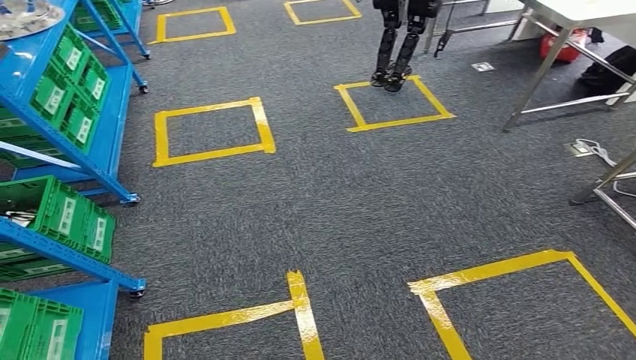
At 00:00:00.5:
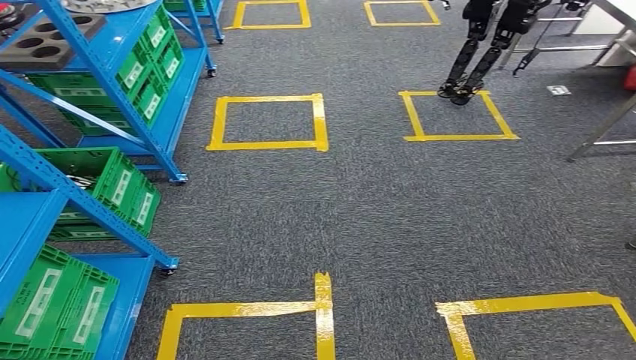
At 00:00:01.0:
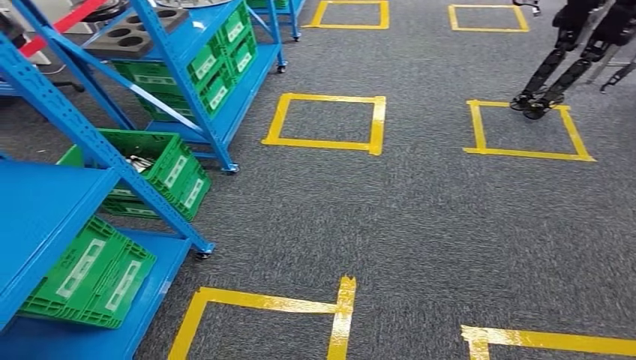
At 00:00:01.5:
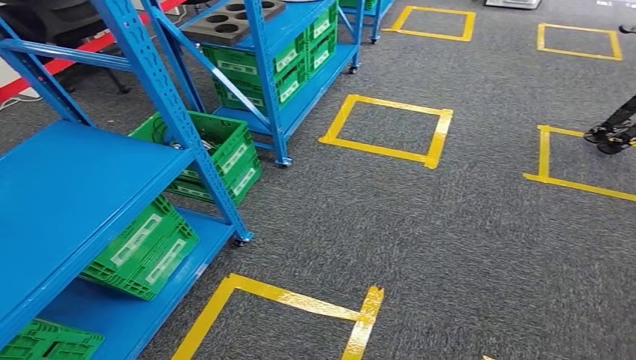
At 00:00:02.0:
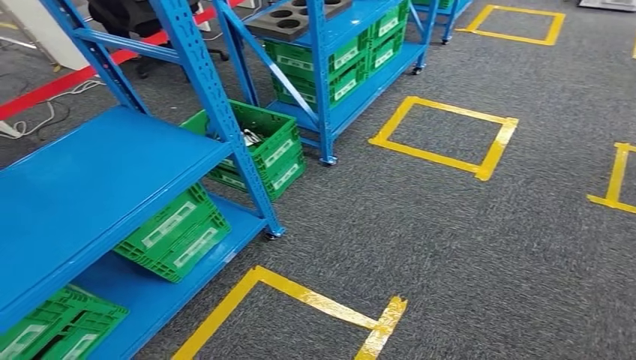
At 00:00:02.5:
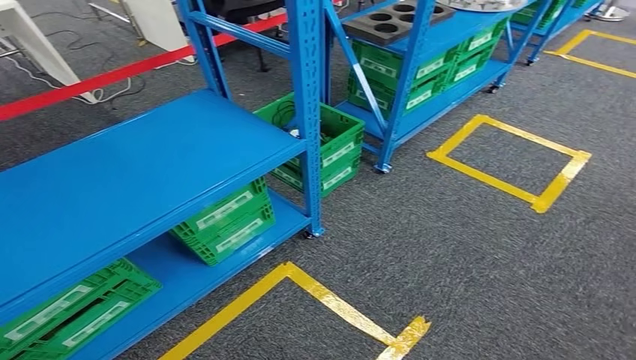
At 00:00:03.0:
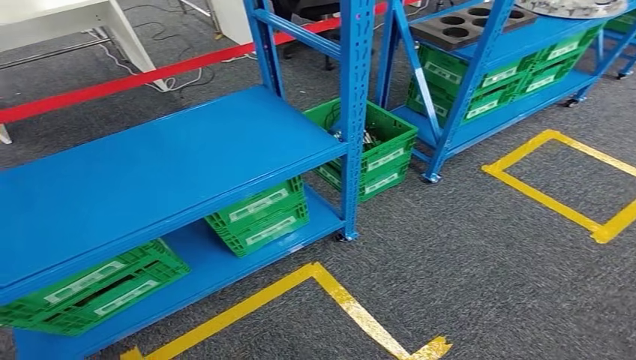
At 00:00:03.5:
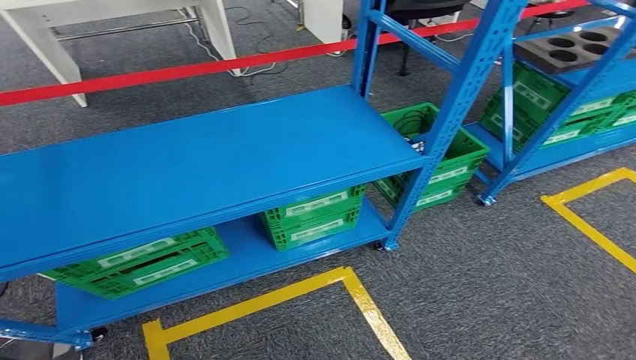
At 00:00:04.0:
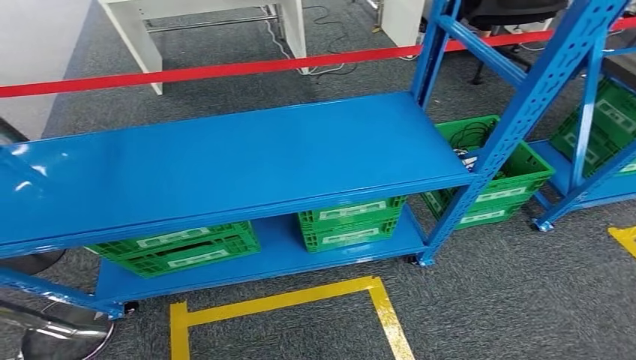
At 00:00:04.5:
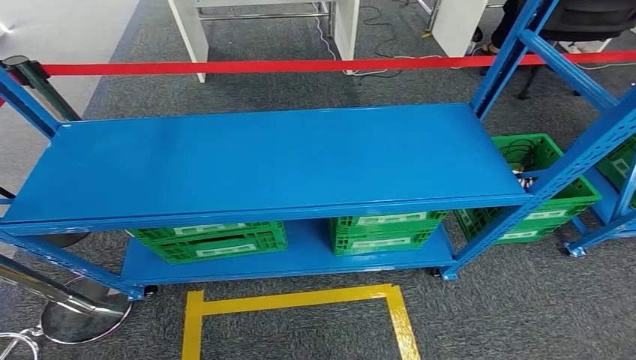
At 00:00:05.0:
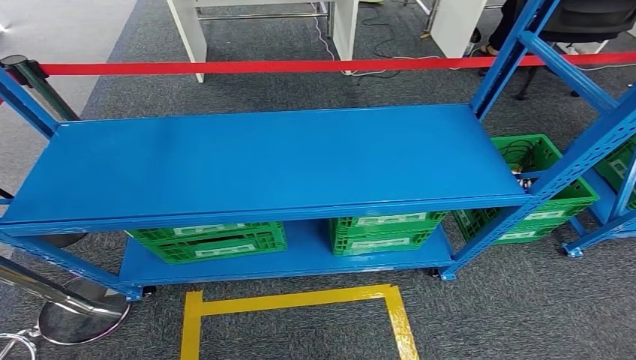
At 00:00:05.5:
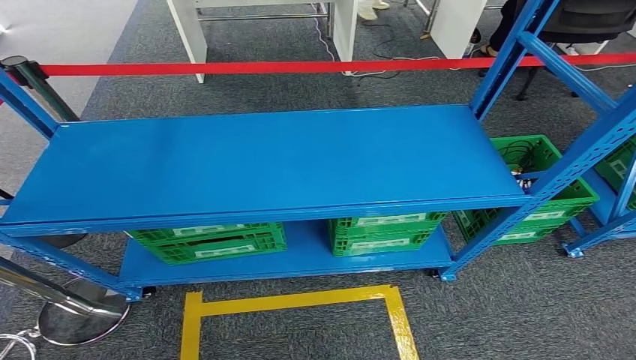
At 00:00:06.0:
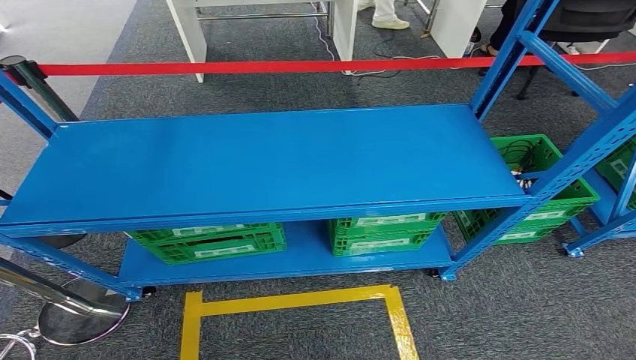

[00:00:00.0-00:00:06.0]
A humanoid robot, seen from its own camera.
Step, 00:00:00.0 to 00:00:06.0: Move to the initial position of the workbench.

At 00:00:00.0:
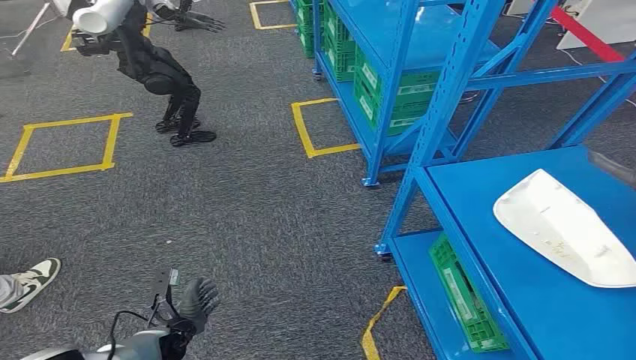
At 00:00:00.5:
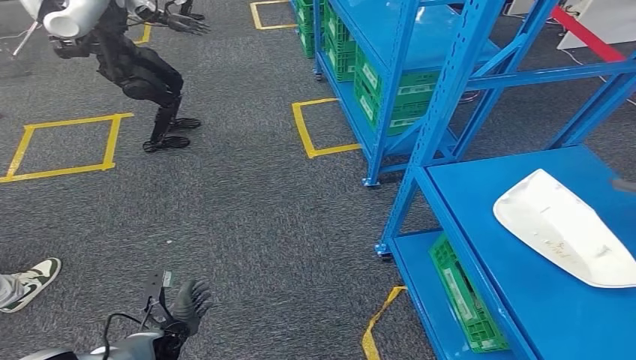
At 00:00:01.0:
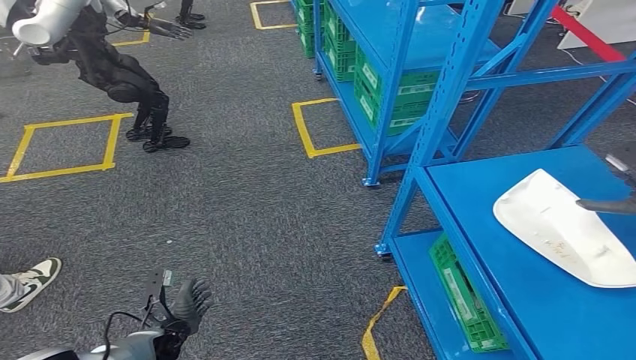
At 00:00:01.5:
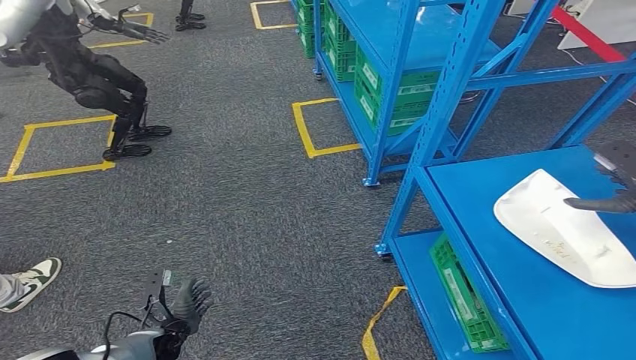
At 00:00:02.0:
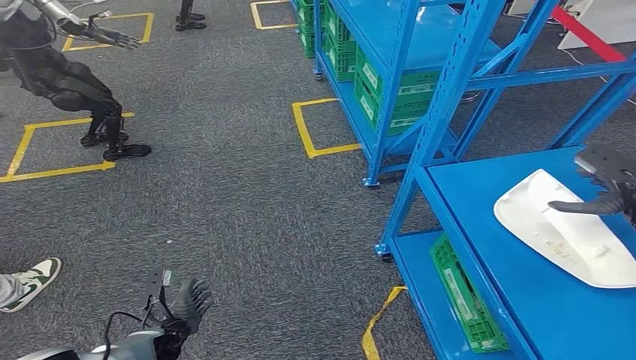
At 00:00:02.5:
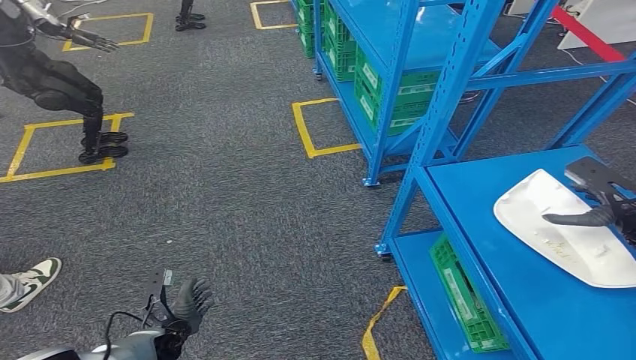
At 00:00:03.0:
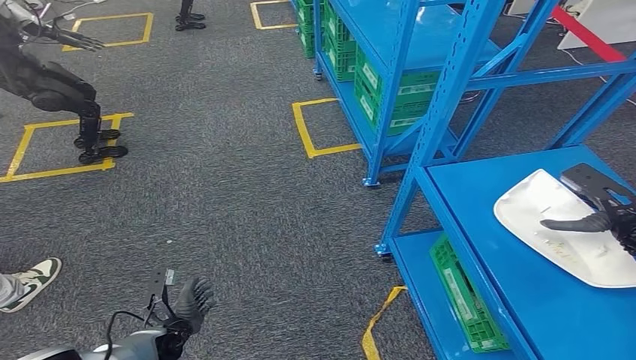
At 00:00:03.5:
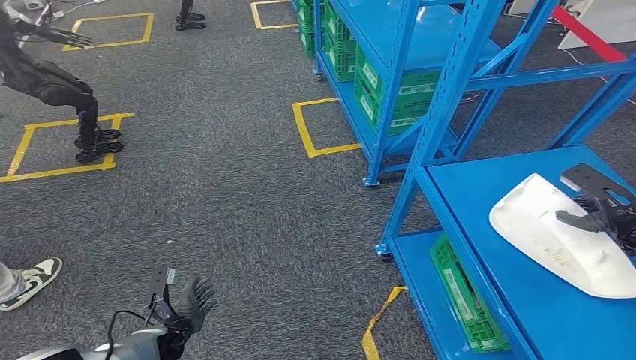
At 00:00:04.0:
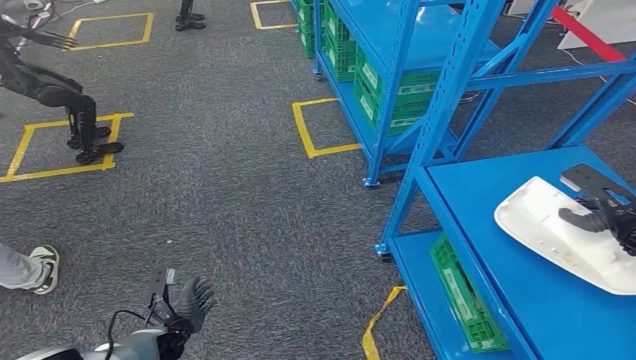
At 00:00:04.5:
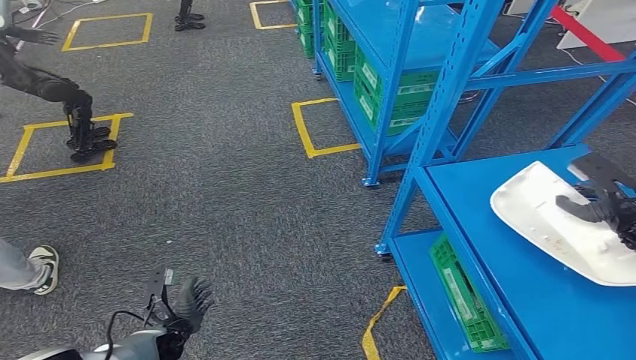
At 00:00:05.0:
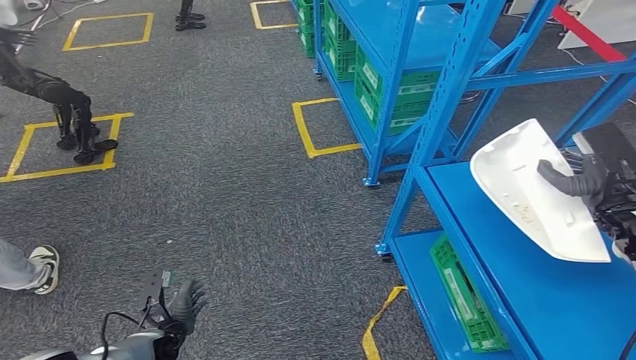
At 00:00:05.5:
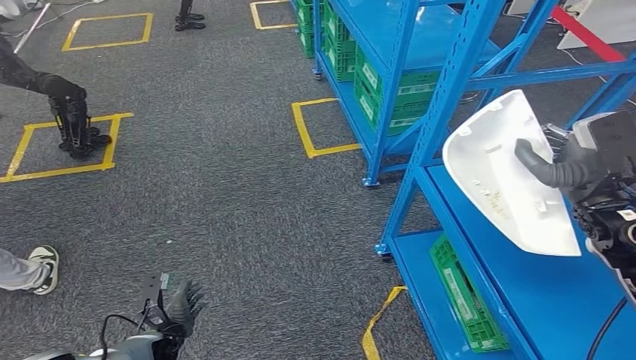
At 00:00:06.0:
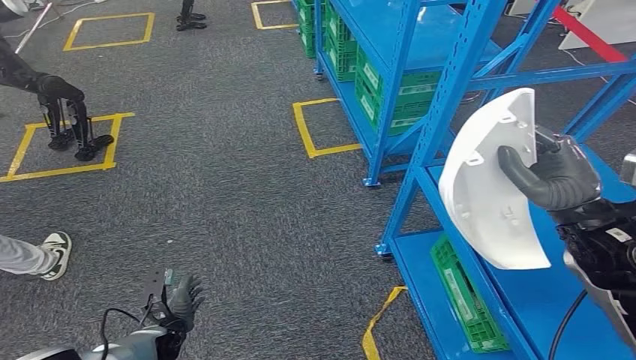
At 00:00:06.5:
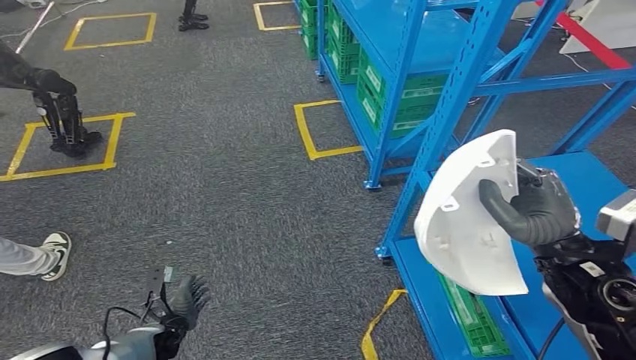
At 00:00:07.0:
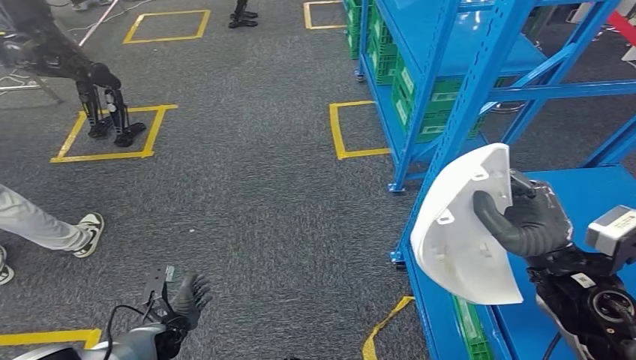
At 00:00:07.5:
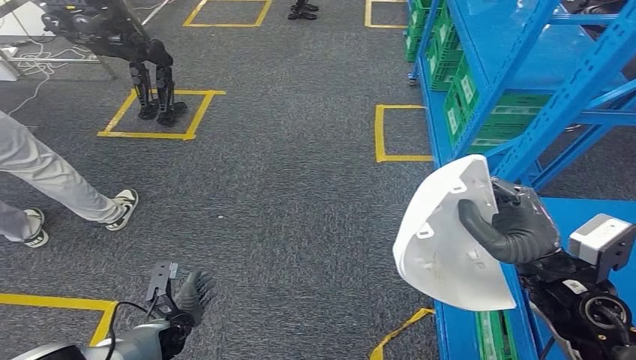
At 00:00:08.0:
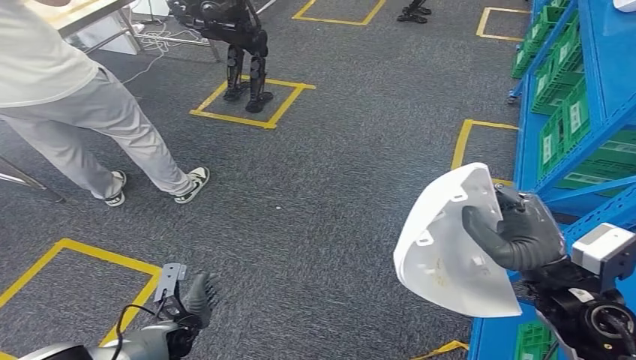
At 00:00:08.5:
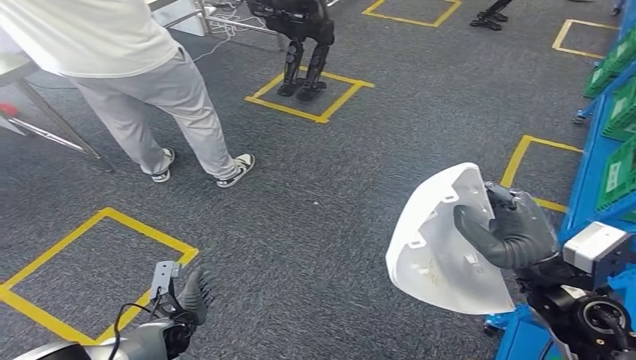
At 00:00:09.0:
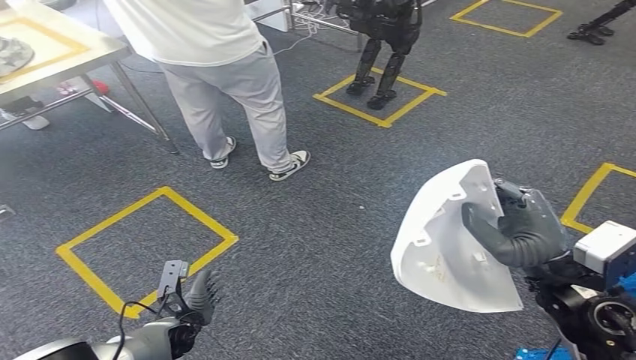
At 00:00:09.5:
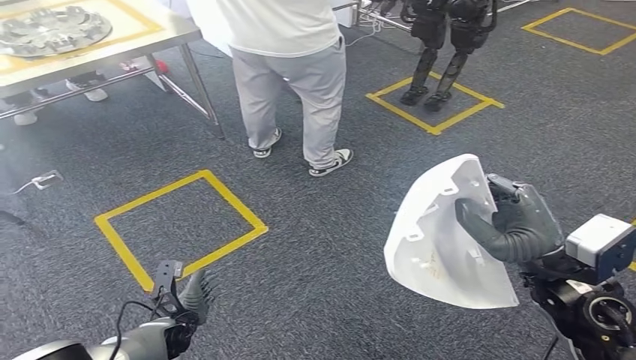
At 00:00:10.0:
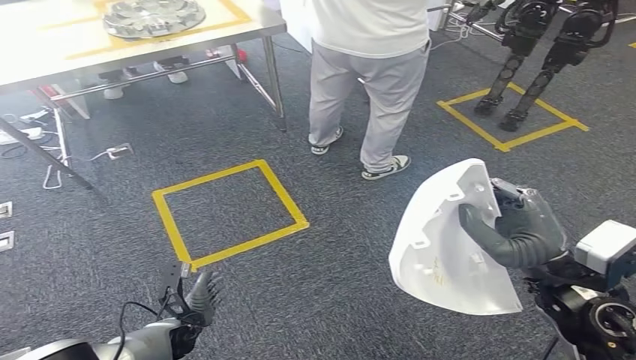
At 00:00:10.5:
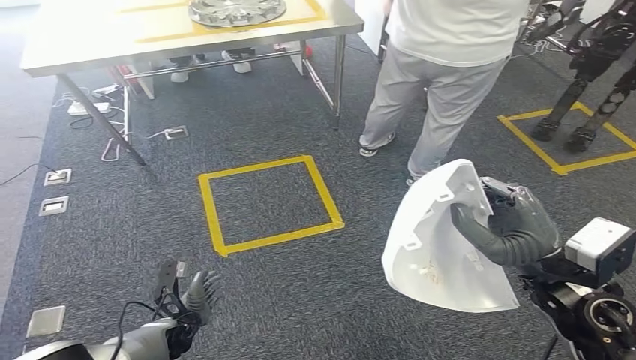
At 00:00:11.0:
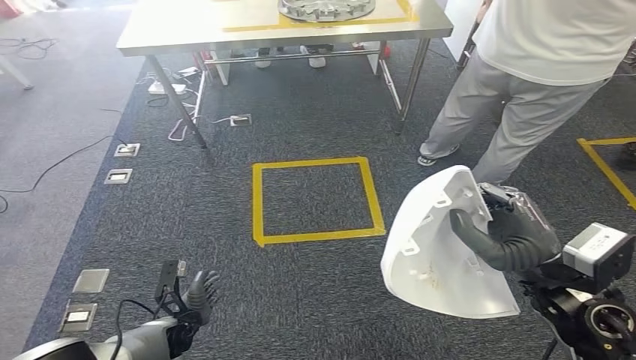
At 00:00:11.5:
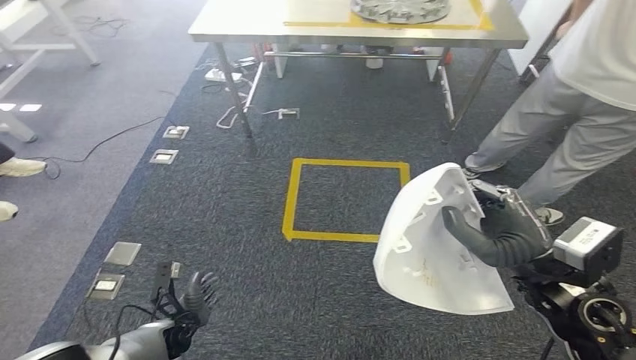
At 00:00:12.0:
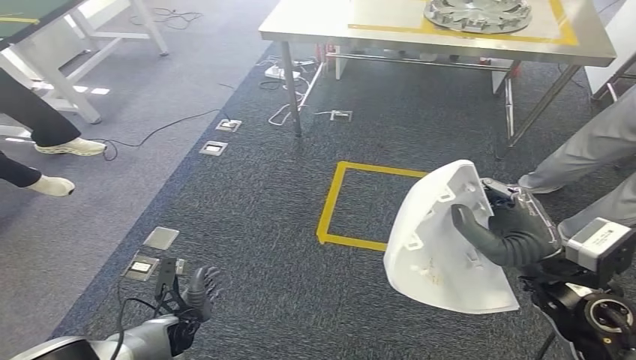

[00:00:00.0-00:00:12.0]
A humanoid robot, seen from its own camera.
Step, 00:00:00.0 to 00:00:06.5: Take small components from the rack.
00:00:02.0 to 00:00:04.0: The hands stay close to where they were, moving slightly.
00:00:04.0 to 00:00:06.0: The right hand moves to the left, backward and upward, approximately 20 cm.

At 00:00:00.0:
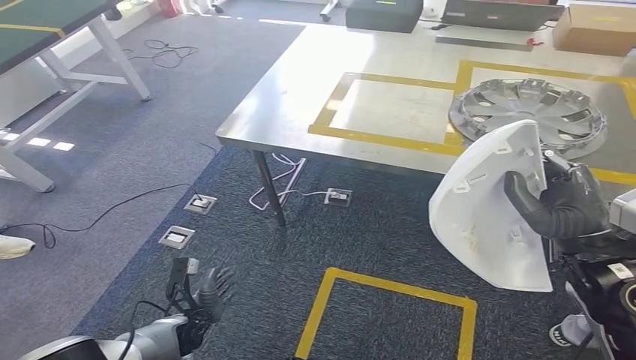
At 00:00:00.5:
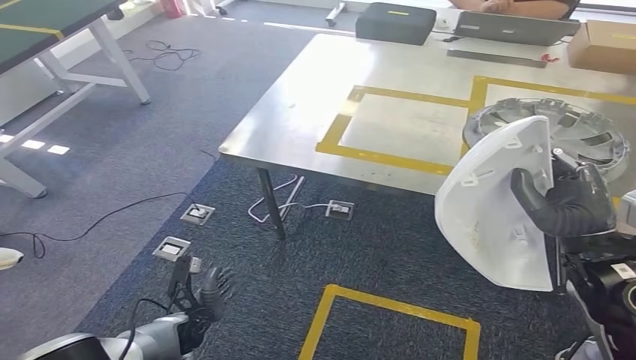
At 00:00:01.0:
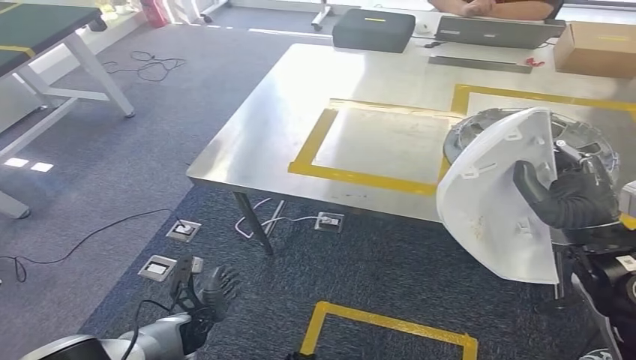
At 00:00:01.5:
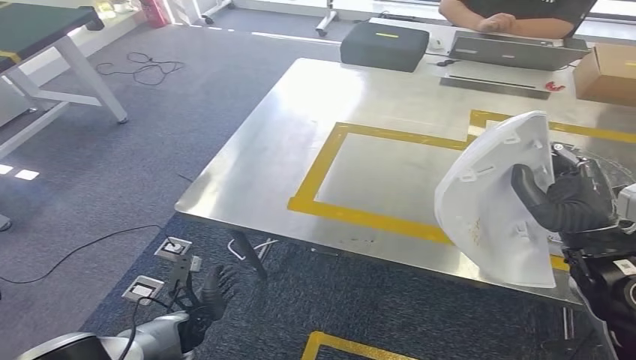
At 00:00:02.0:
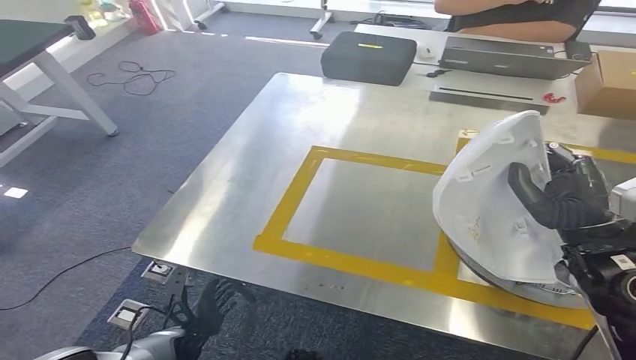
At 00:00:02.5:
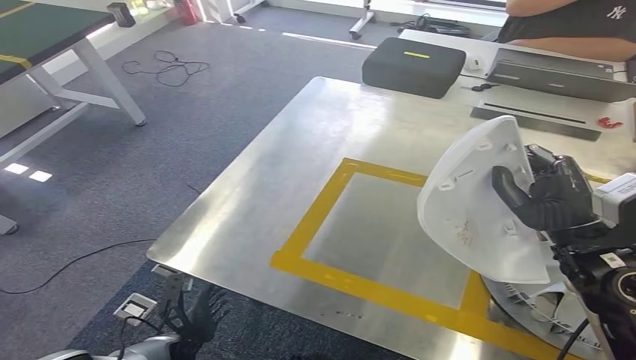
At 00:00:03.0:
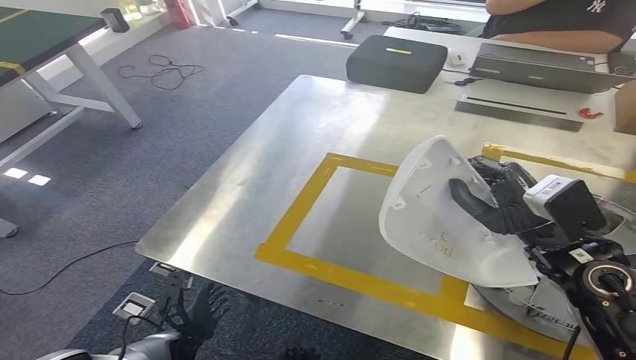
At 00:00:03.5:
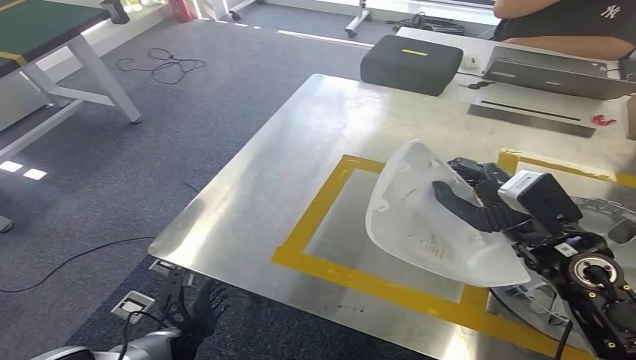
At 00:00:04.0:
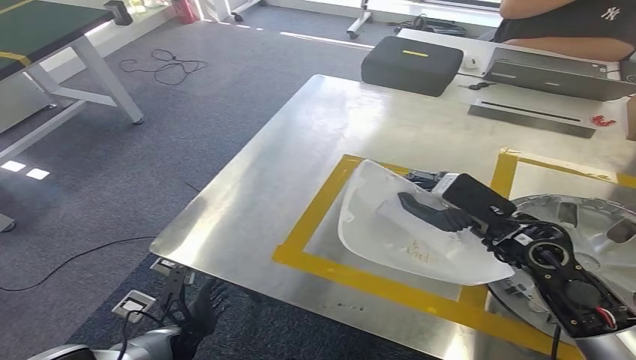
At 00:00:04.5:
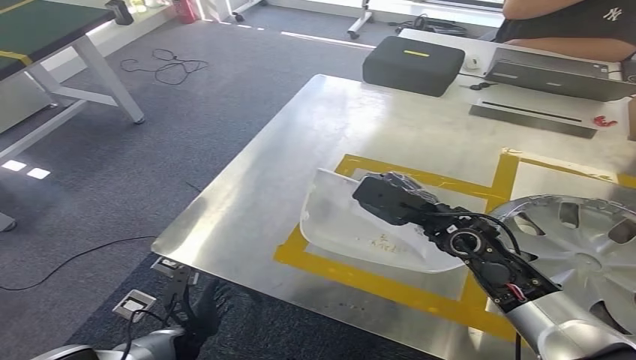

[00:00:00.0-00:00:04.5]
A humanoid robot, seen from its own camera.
Step, 00:00:00.0 to 00:00:03.0: Move the small parts to the workbench.
